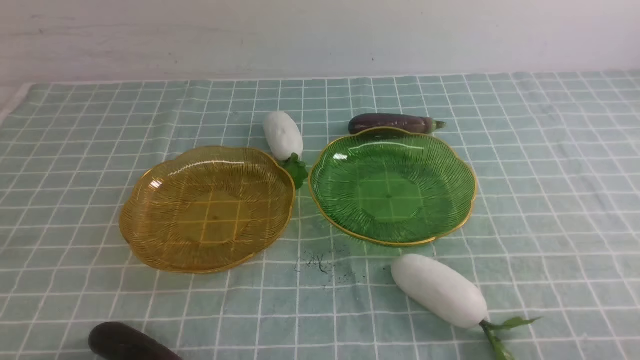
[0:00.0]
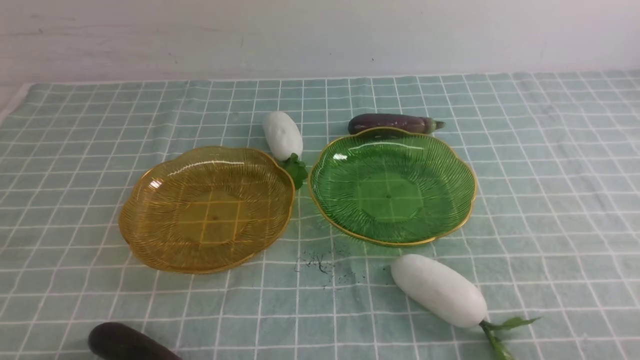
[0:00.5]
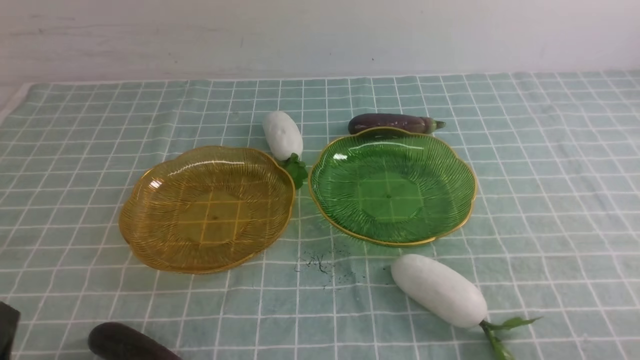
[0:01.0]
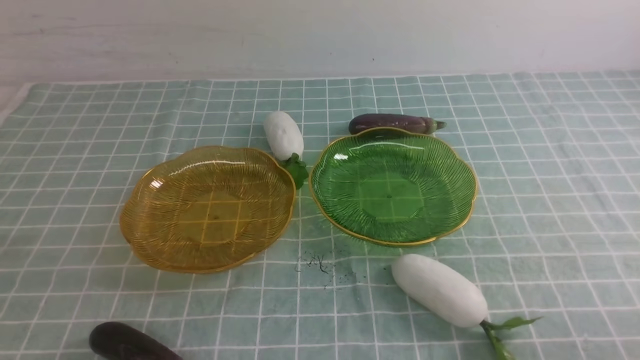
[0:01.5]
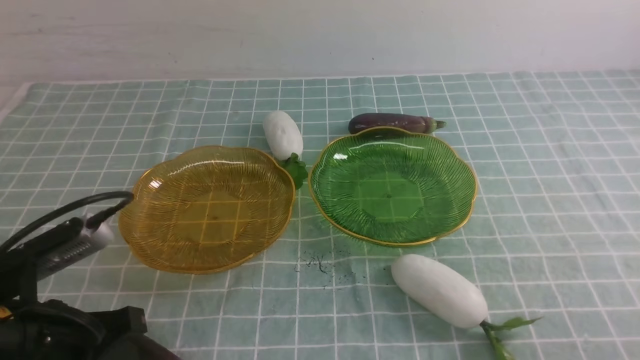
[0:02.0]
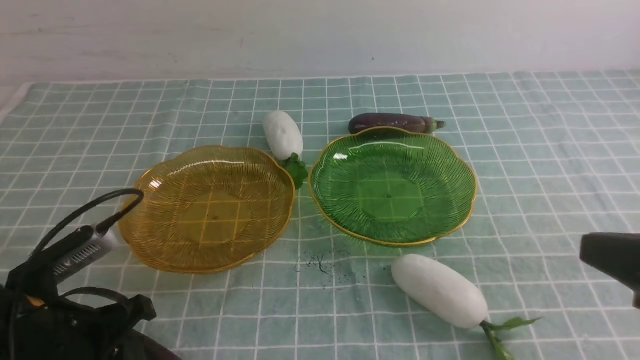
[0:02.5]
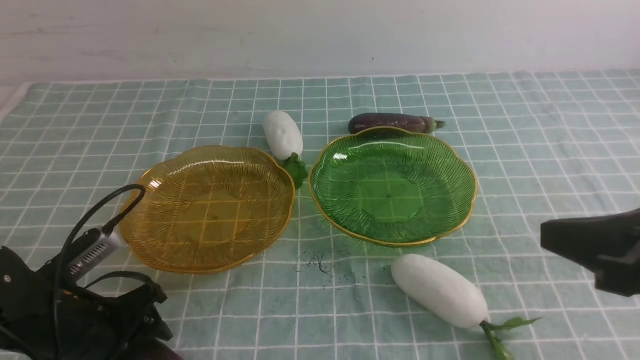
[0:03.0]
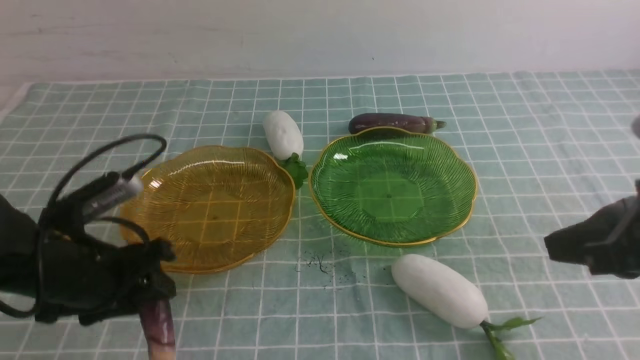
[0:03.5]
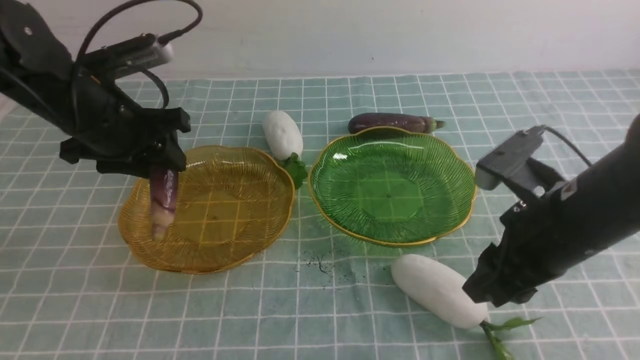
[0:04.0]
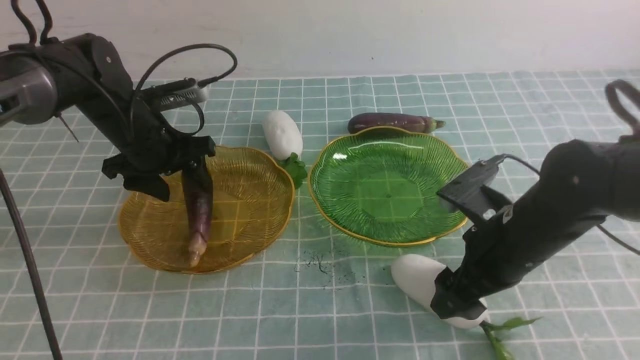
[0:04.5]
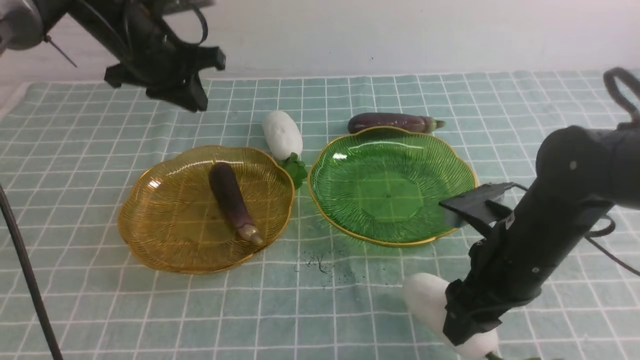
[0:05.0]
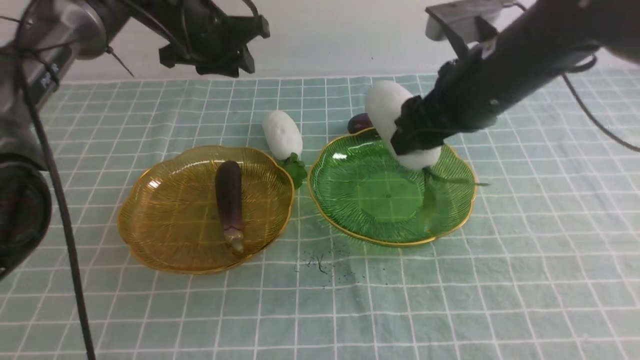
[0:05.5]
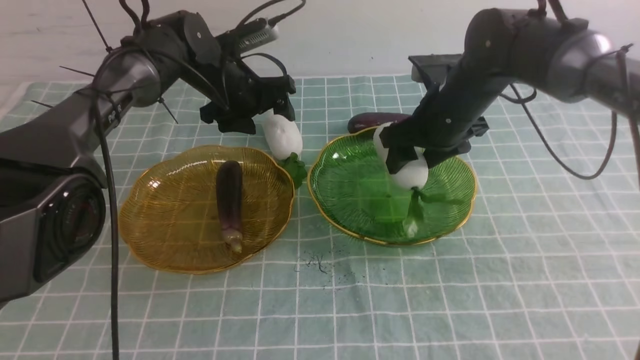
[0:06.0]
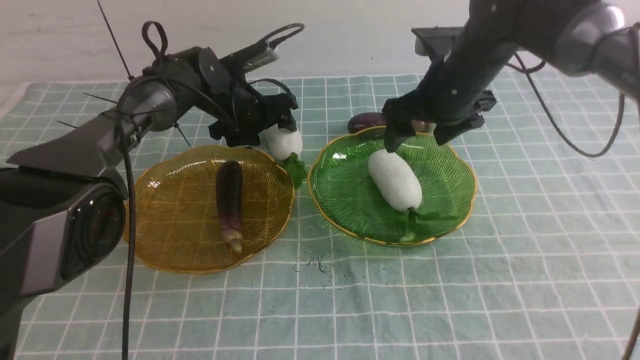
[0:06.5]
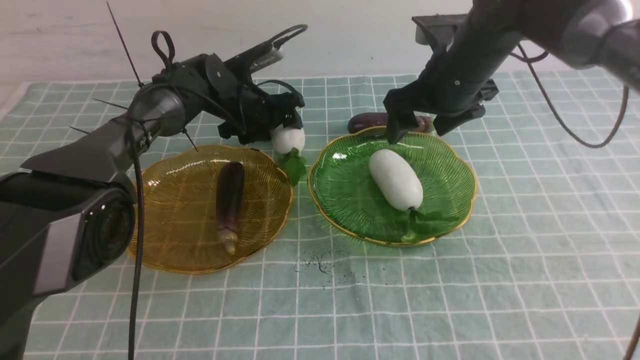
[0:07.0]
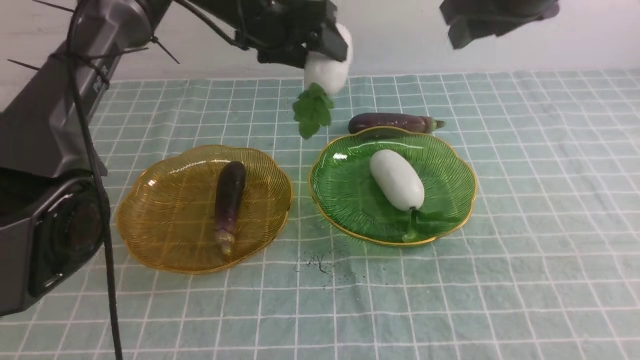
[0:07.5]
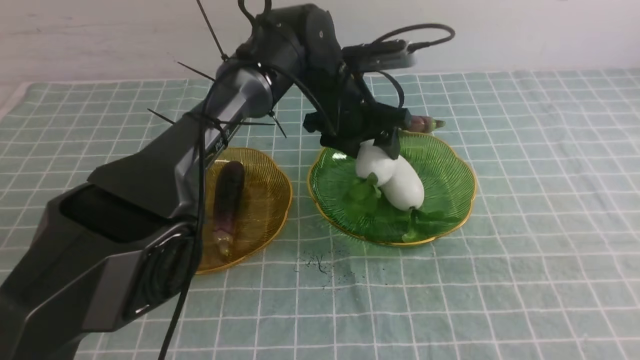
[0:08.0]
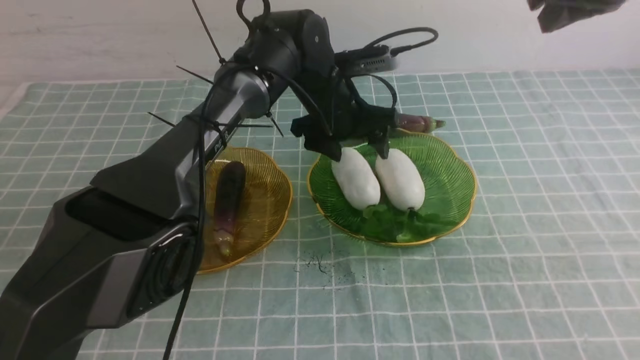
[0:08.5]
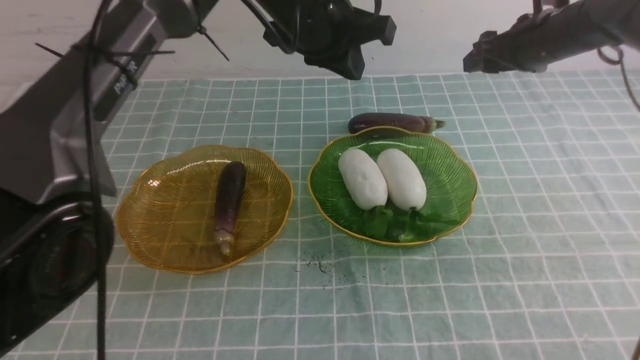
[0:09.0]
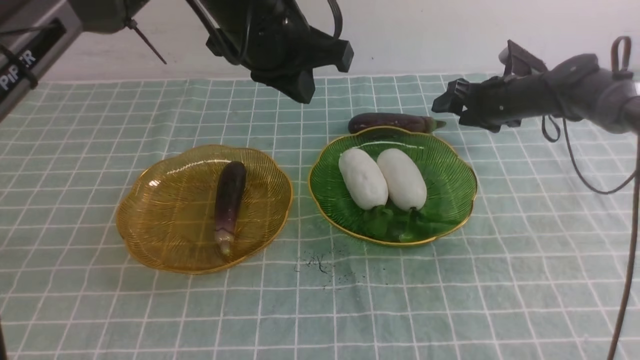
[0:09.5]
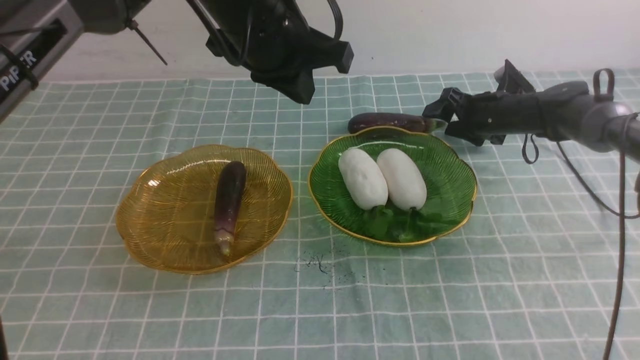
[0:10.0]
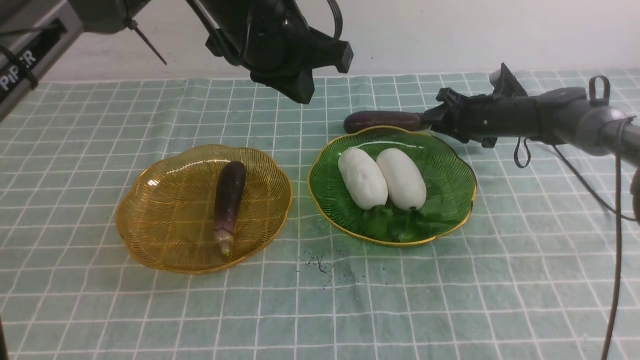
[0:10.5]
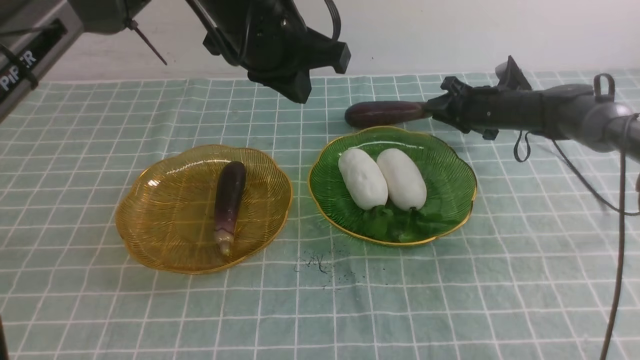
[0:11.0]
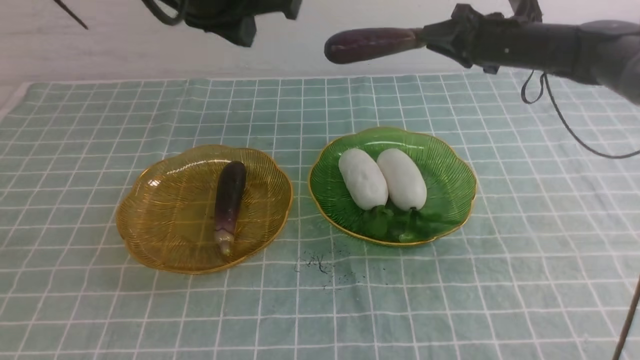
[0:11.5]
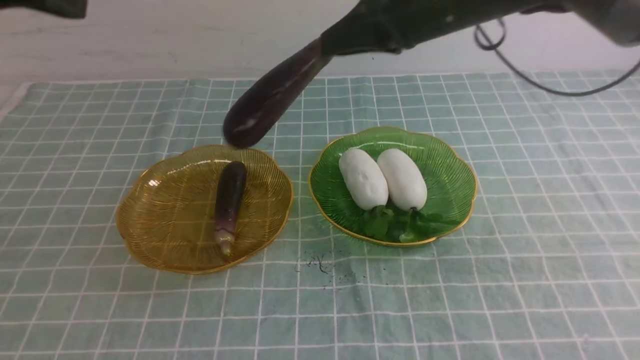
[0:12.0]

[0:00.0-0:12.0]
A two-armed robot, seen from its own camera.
Step, 0:00.0 to 0:04.5: use the left arm to grab an eggplant and put it into the left plate.
Step, 0:05.0 to 0:06.0: use the right arm to grab a radish and put it into the right plate.
Step, 0:06.5 to 0:08.0: use the left arm to grab a radish and put it into the right plate.
0:00.0 to 0:02.0: The left gripper moves forward and upward, approximately 10 cm.
0:02.0 to 0:04.0: The left gripper shifts approximately 20 cm forward, and opens up. Meanwhile the right gripper is displaced forward and to the left by approximately 20 cm, and opens its fingers.
0:04.0 to 0:06.0: The right gripper moves forward, approximately 20 cm. Meanwhile the left gripper moves forward and to the right, approximately 20 cm, and opens up.
0:06.0 to 0:08.0: The left gripper goes up and down, roughly 15 cm each way, reversing 2 times. The right gripper travels upward and to the right by about 20 cm, and closes.
0:08.0 to 0:10.0: The right gripper moves downward and forward, about 35 cm, and opens its fingers. Meanwhile the left gripper shifts some 20 cm upward, backward and to the left, and closes up.
0:10.0 to 0:12.0: The left gripper heads to the left, backward and upward, covering about 20 cm. Meanwhile the right gripper moves upward, to the left and backward, roughly 30 cm, and closes its fingers.

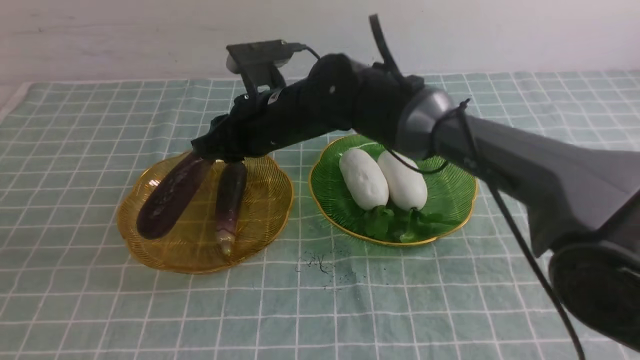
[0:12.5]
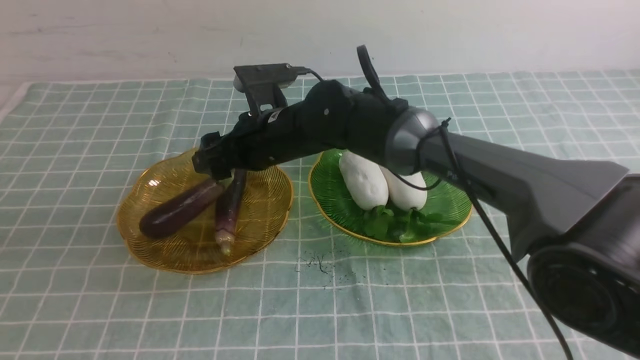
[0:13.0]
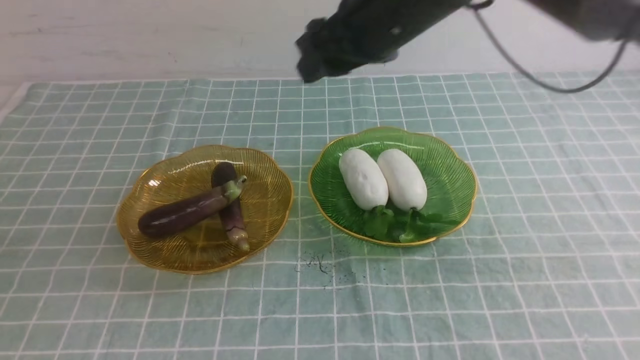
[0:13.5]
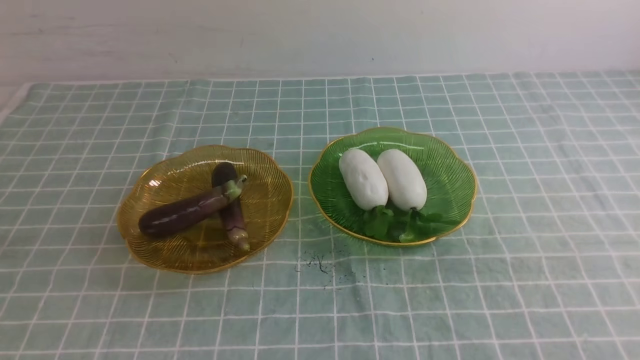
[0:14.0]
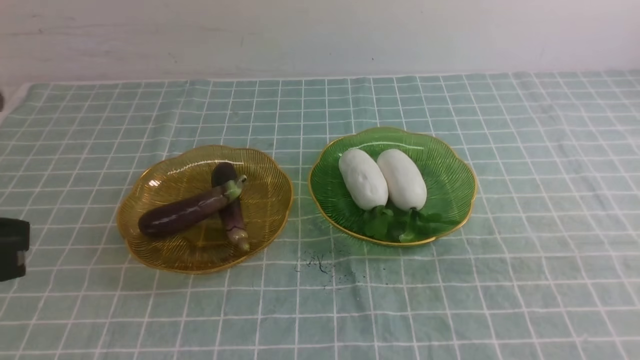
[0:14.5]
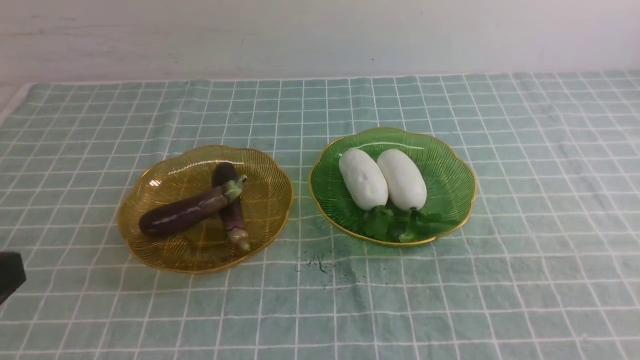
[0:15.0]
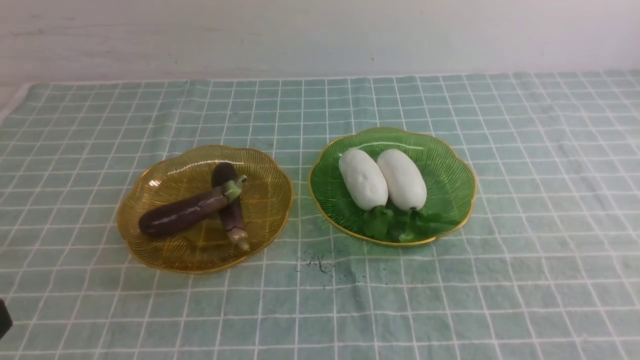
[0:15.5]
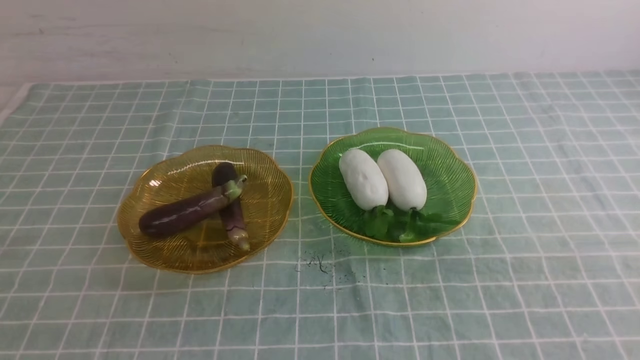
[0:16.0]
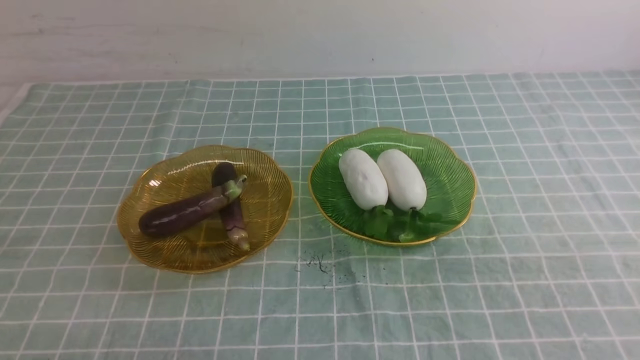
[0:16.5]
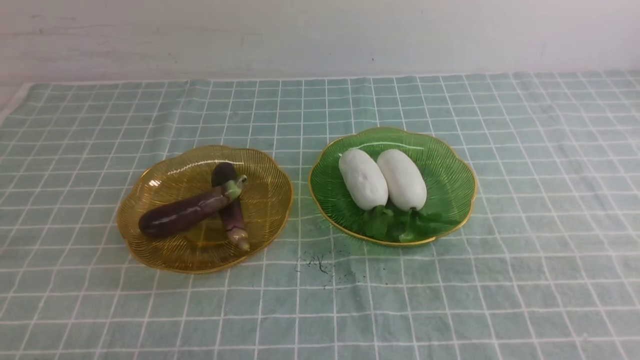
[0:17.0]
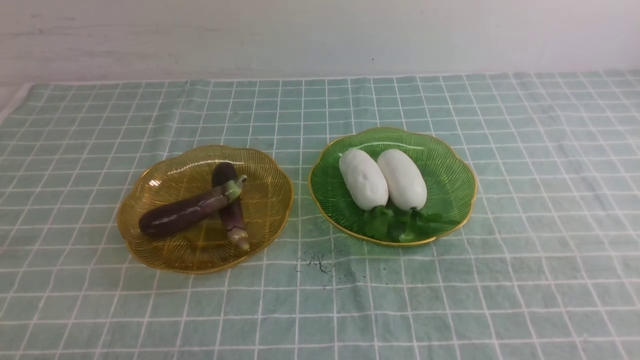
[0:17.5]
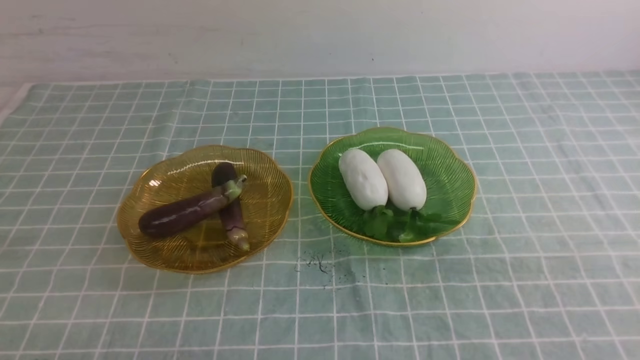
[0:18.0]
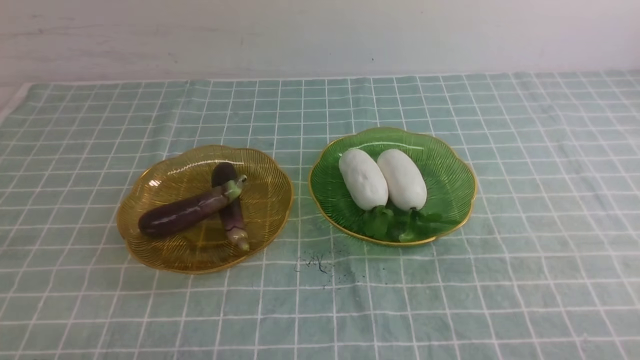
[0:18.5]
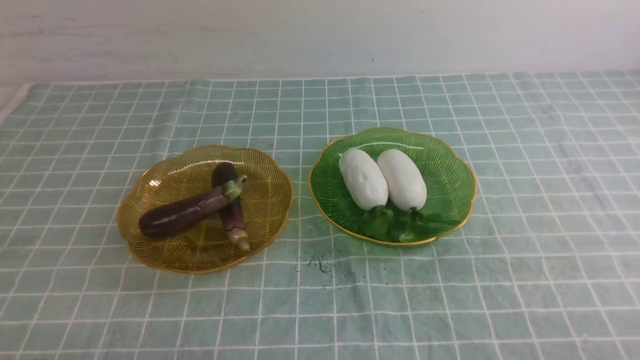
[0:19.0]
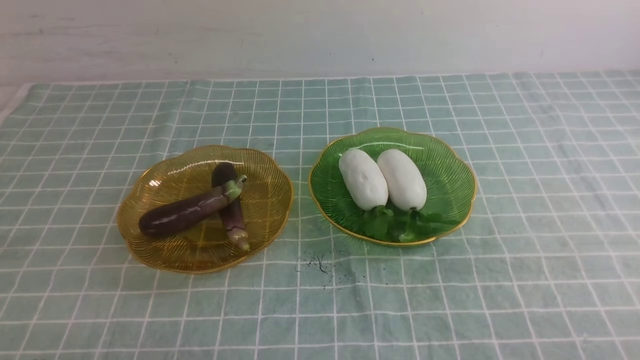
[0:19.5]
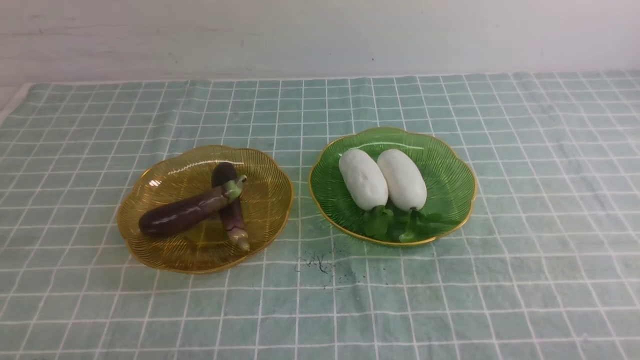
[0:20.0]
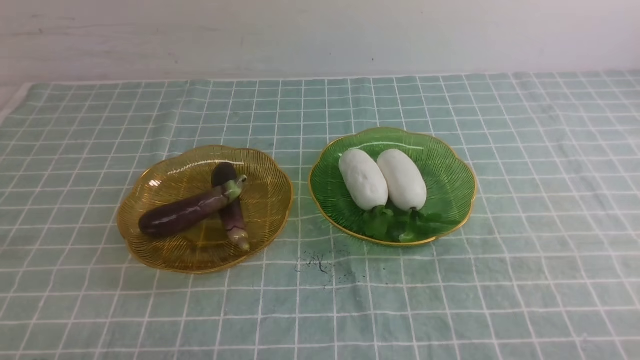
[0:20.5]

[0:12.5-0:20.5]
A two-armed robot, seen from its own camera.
0:12.5 to 0:14.5: The left gripper travels downward by roughly 5 cm. Meanwhile the right gripper moves backward and to the right, about 50 cm, and opens and closes again.
0:14.5 to 0:16.5: The left gripper heads downward, covering roughly 20 cm.
